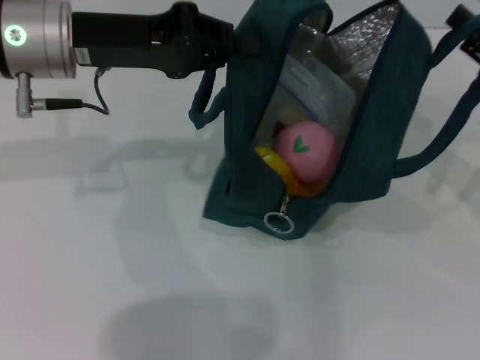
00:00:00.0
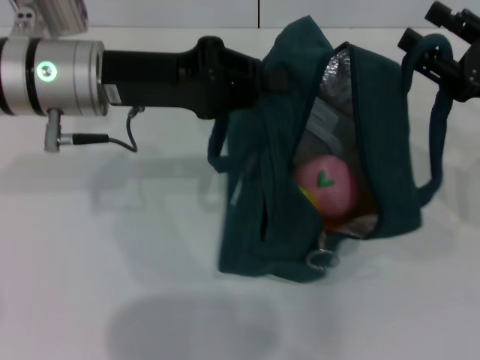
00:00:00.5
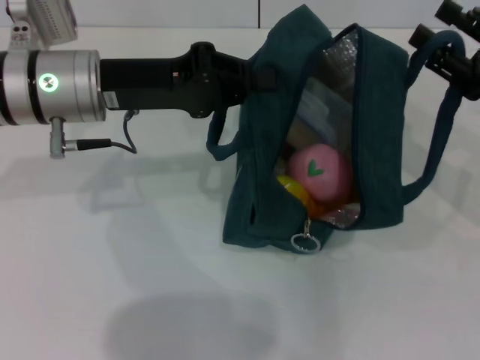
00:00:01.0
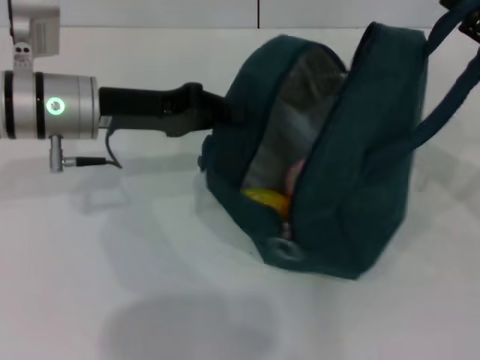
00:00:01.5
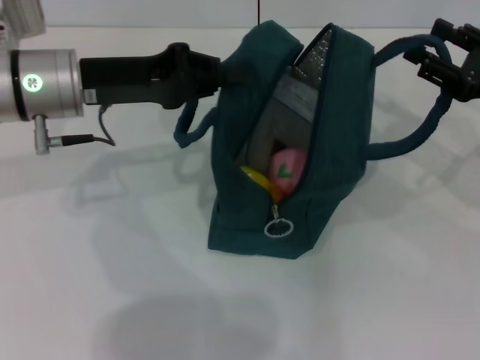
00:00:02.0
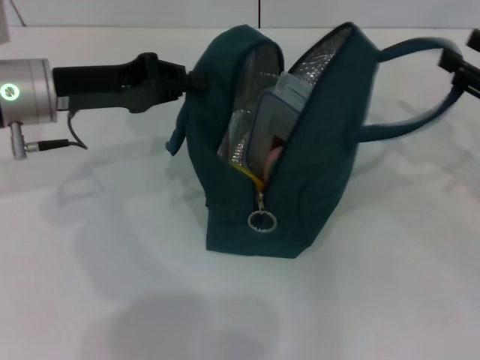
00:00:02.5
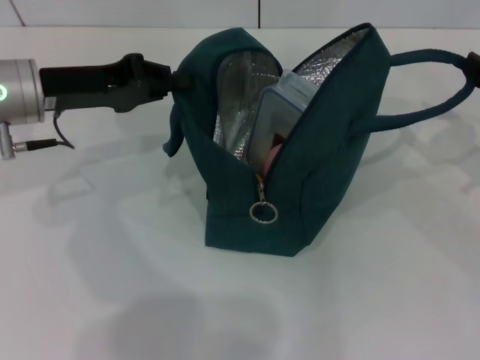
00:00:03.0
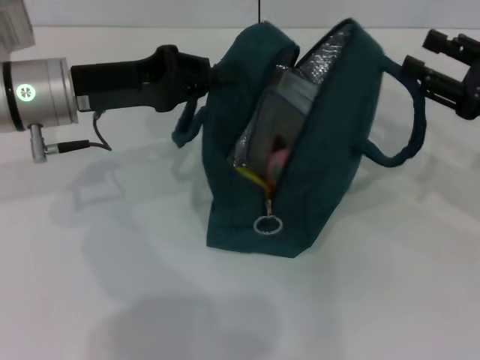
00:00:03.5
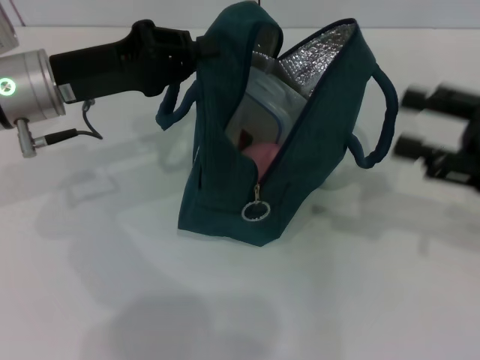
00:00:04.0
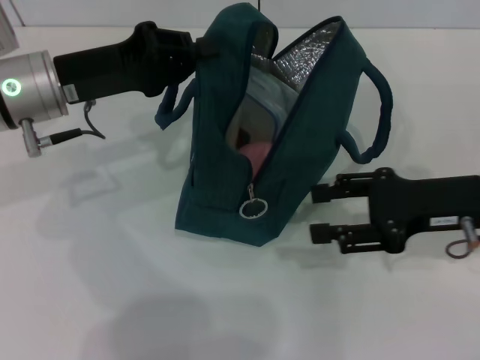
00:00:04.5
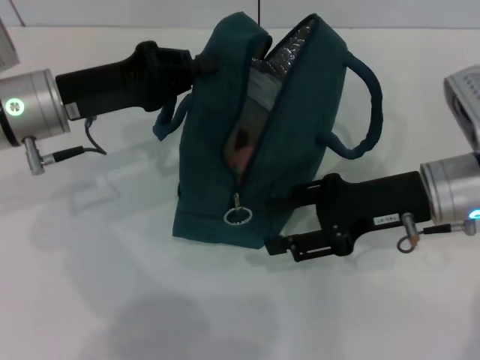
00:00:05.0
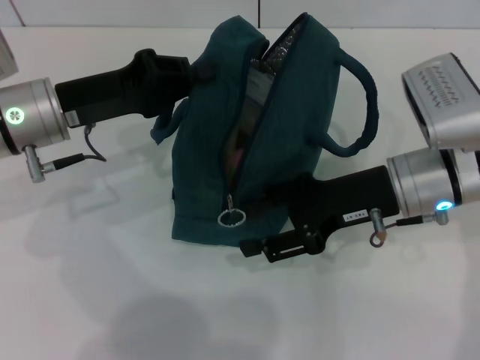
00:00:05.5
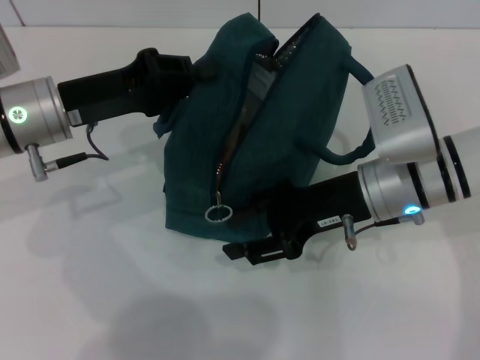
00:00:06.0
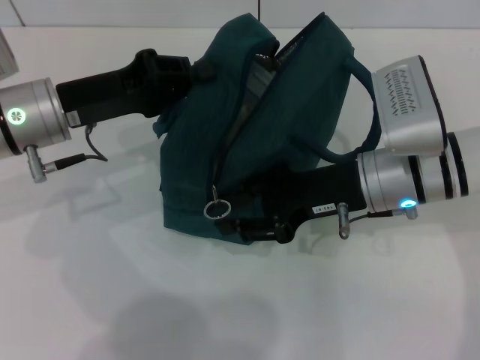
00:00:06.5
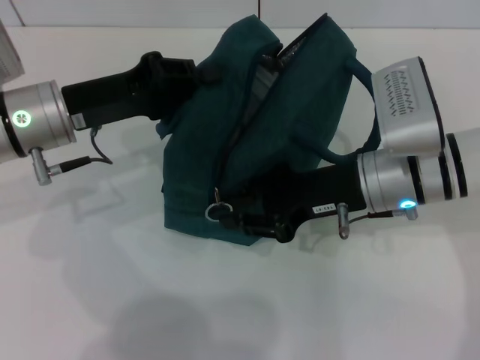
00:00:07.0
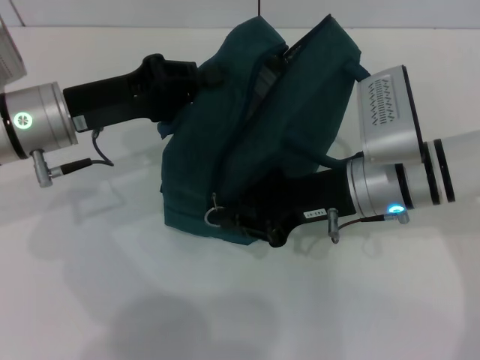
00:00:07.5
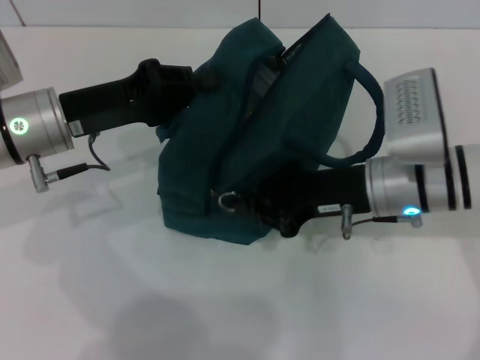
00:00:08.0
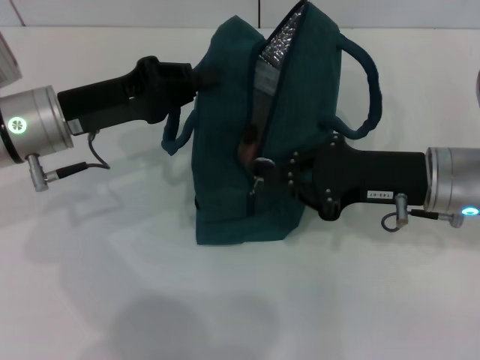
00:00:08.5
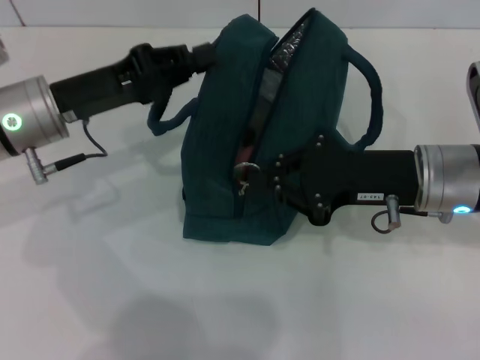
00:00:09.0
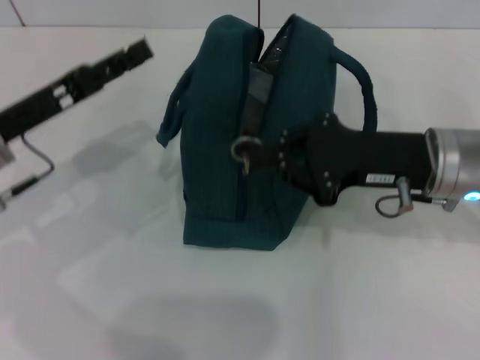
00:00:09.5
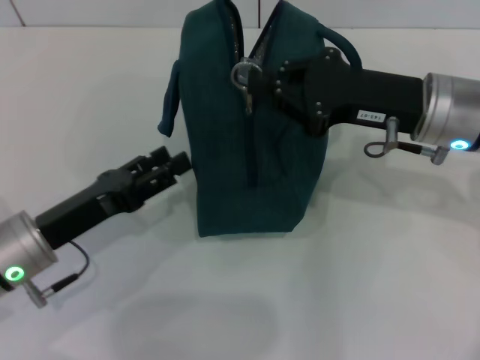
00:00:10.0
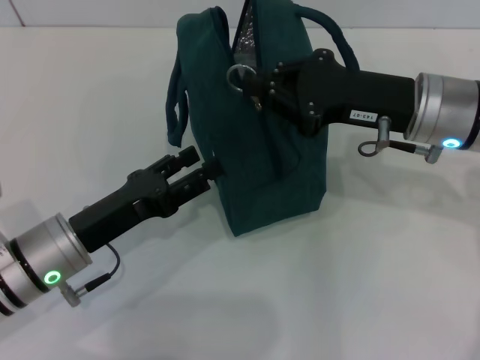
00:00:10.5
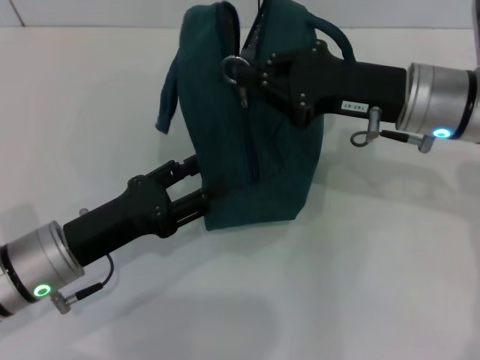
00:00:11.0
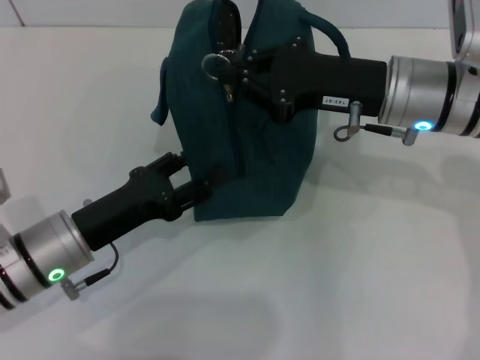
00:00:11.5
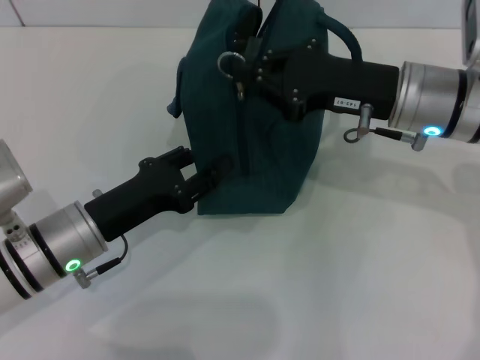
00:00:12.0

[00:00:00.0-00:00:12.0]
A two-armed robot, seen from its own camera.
Step, 00:00:00.0 to 00:00:03.5: Hold the lunch bag with your right hand.
00:00:00.0 to 00:00:02.0: The left gripper changes place by approximately 5 cm.
00:00:02.0 to 00:00:04.0: The right gripper travels backward by approximately 5 cm.
00:00:04.0 to 00:00:06.0: The right gripper is displaced to the left by approximately 15 cm.
00:00:06.0 to 00:00:08.0: The right gripper closes its fingers.
00:00:08.0 to 00:00:10.0: The left gripper is displaced backward and downward by approximately 10 cm, and opens its fingers. The right gripper shifts approximately 5 cm upward.
00:00:10.0 to 00:00:12.0: The grippers stay close to where they were, moving slightly.

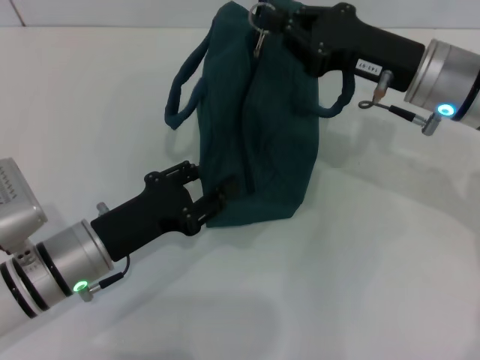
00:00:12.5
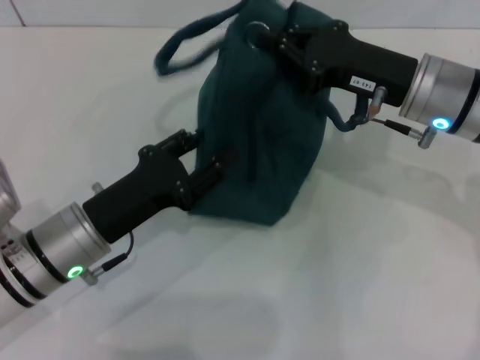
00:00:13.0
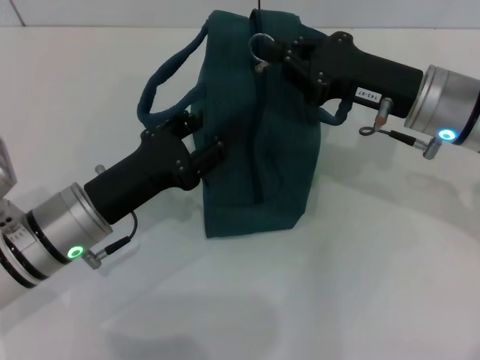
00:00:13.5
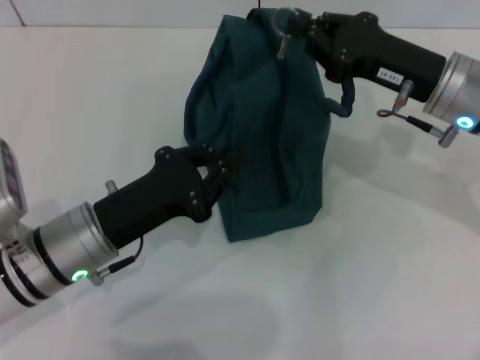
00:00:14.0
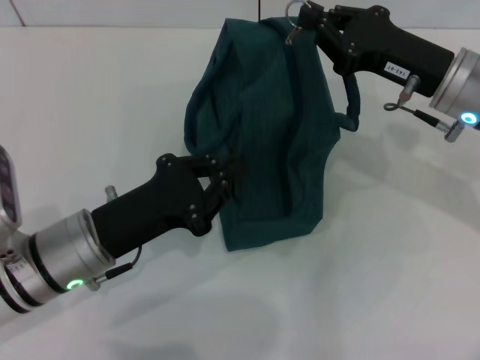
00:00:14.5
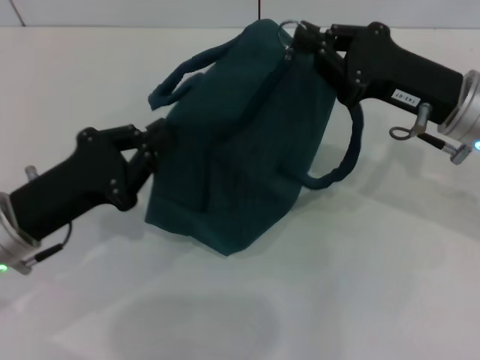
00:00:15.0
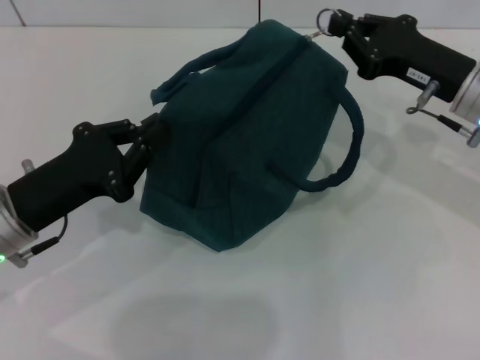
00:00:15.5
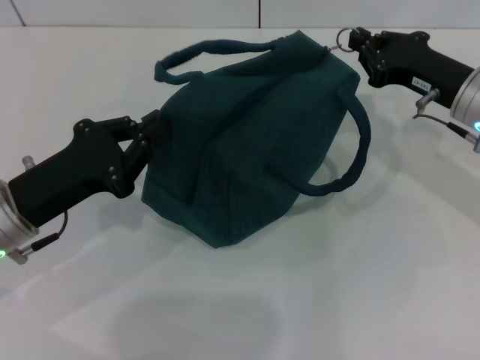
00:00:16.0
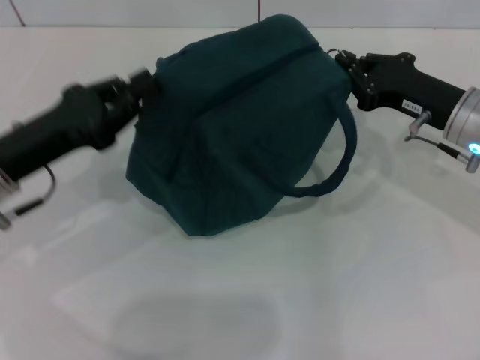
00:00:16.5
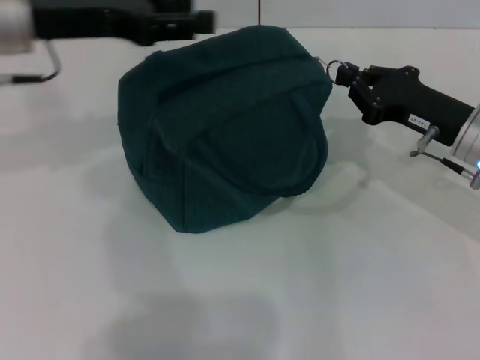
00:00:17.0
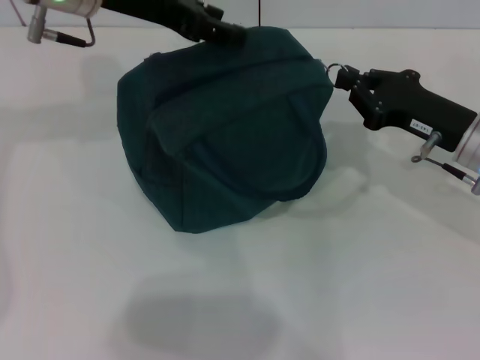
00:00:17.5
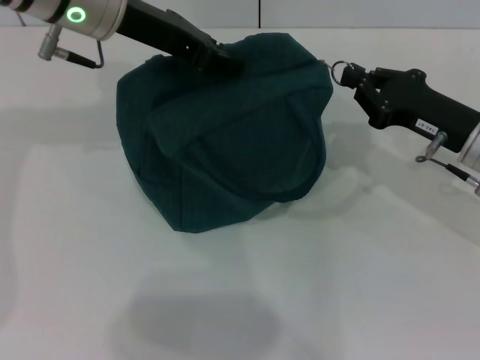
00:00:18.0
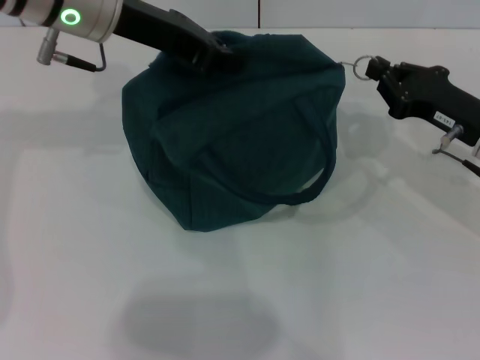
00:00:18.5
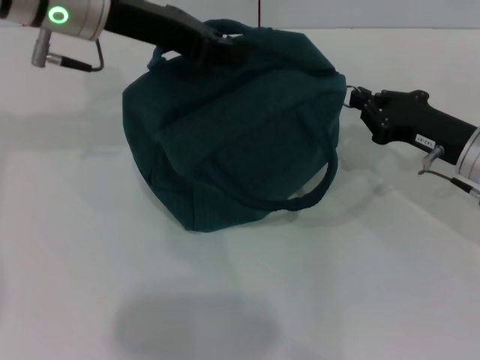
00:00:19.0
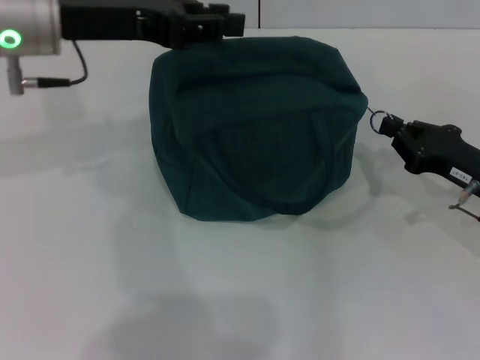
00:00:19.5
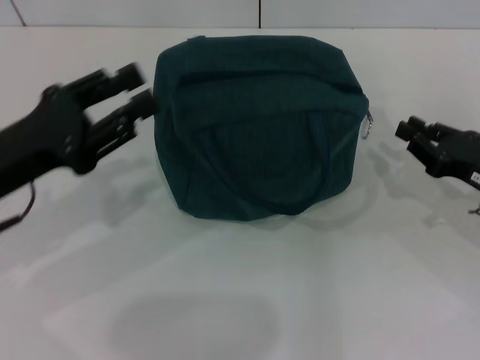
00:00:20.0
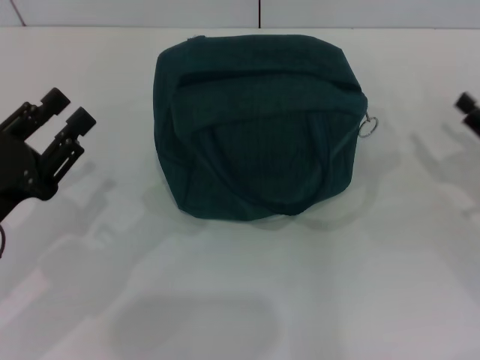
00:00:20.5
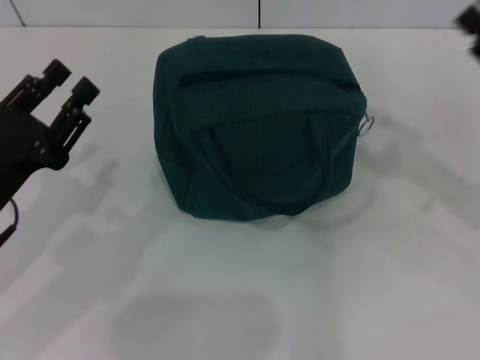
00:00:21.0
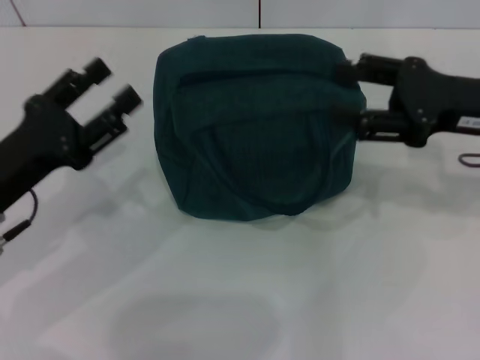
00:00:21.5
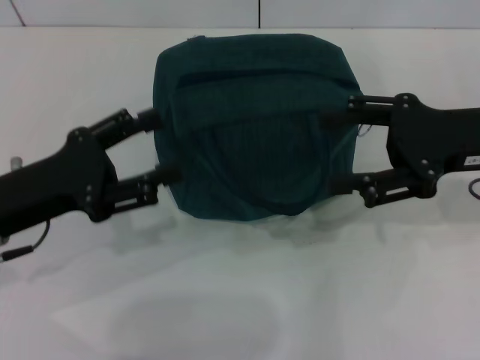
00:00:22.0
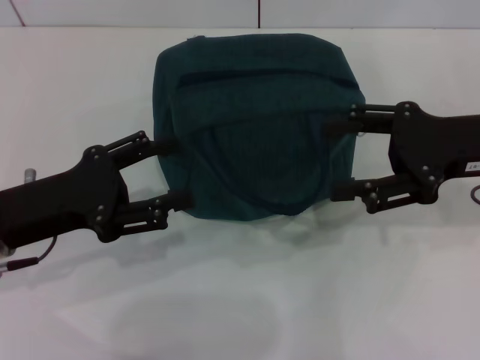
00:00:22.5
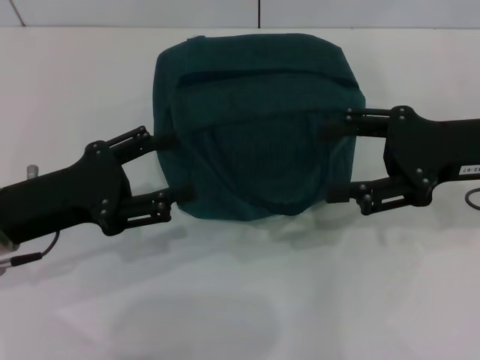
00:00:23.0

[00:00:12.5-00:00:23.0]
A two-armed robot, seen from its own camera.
Step, 00:00:12.5 to 00:00:19.5: Hold the lunch bag with your left hand.
00:00:12.5 to 00:00:14.5: The left gripper closes its fingers.
00:00:14.5 to 00:00:16.5: The left gripper travels to the left and upward by some 10 cm, while the right gripper changes place by roughly 5 cm.
00:00:16.5 to 00:00:19.0: The left gripper goes roughly 20 cm upward, forward and to the right, and opens, then closes again.
00:00:19.0 to 00:00:21.0: The left gripper shifts some 25 cm backward, downward and to the left, and opens its fingers. The right gripper moves to the right, upward and backward, approximately 10 cm, and opens.
00:00:21.0 to 00:00:23.0: The left gripper opens. Meanwhile the right gripper heads to the left, covering approximately 5 cm.

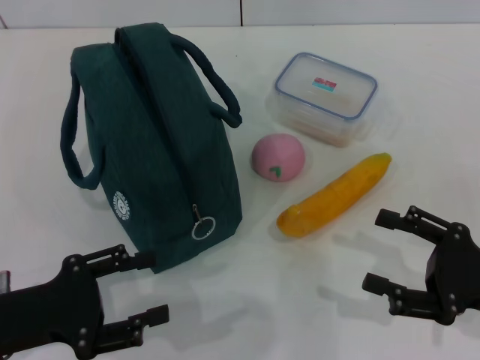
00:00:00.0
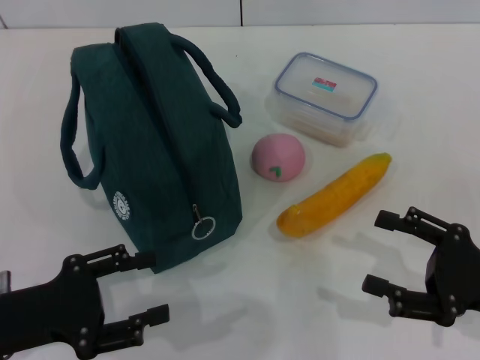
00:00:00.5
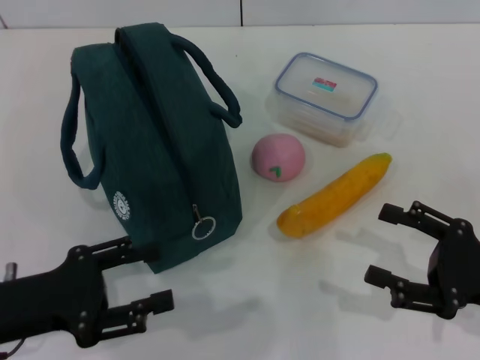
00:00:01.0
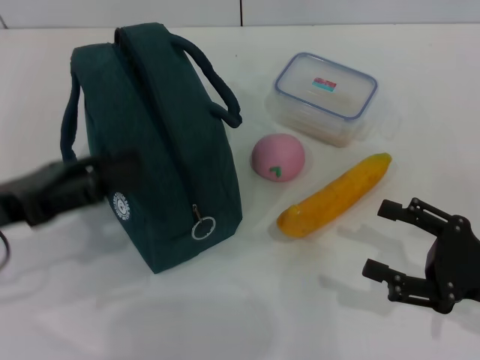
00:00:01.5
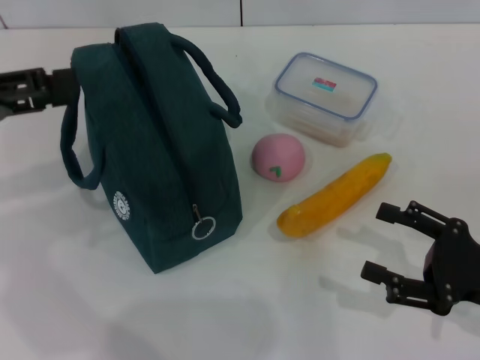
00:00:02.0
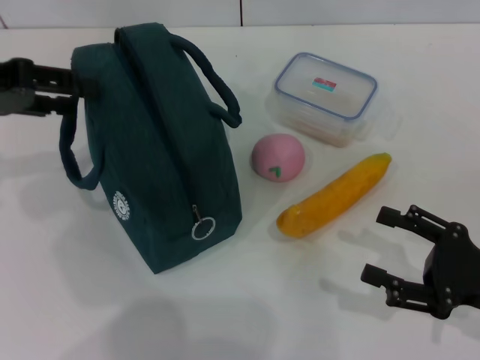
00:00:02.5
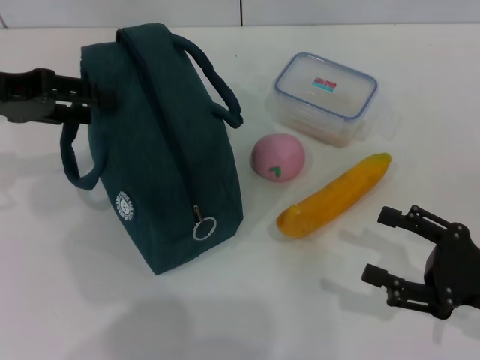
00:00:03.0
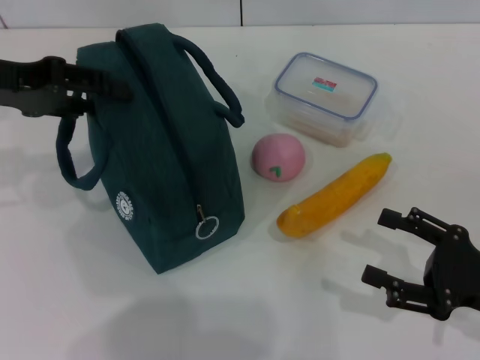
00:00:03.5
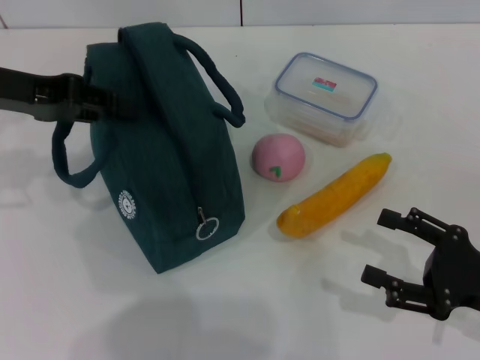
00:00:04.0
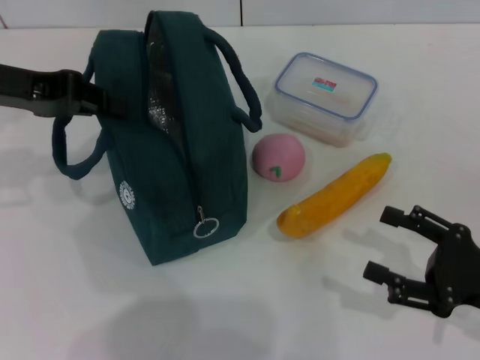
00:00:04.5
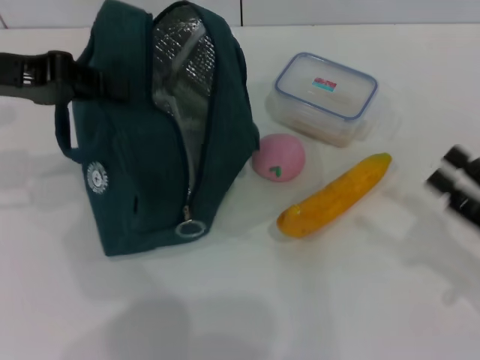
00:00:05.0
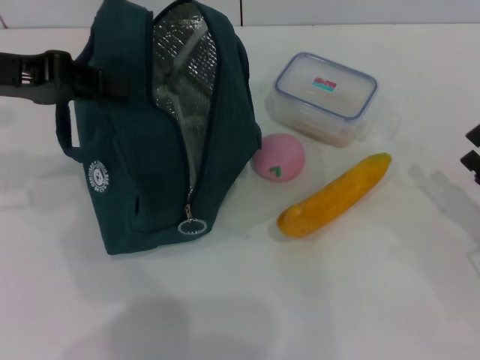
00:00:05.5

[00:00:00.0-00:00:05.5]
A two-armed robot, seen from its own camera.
Step, 00:00:00.0 to 00:00:05.5: Hold the lunch bag with your left hand.
00:00:00.0 to 00:00:02.0: The left gripper is displaced upward, forward and to the left by roughly 20 cm.
00:00:02.0 to 00:00:03.5: The left gripper shifts about 5 cm forward.
00:00:03.5 to 00:00:05.5: The left gripper closes up.
